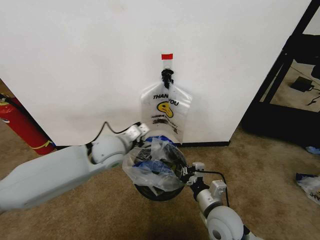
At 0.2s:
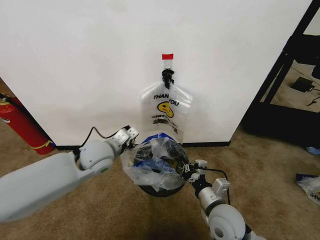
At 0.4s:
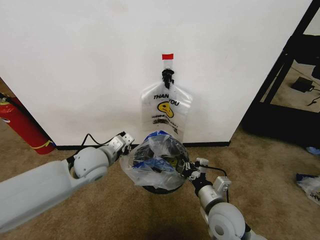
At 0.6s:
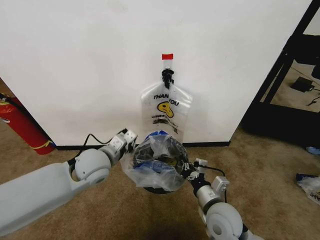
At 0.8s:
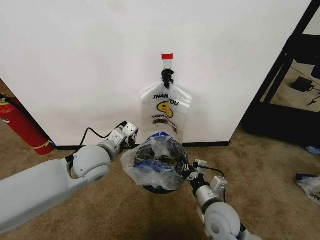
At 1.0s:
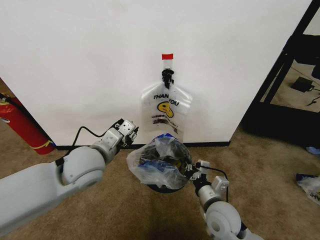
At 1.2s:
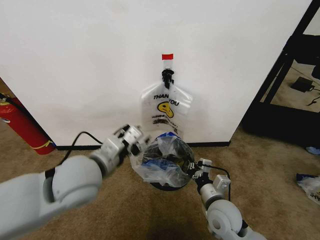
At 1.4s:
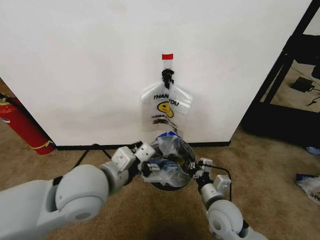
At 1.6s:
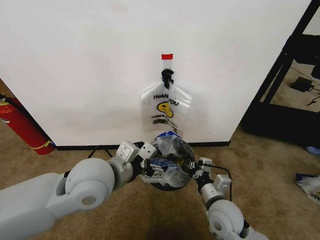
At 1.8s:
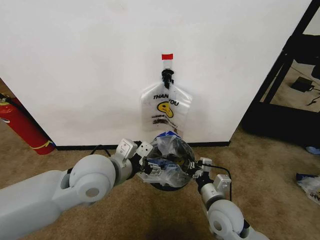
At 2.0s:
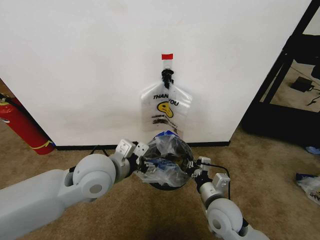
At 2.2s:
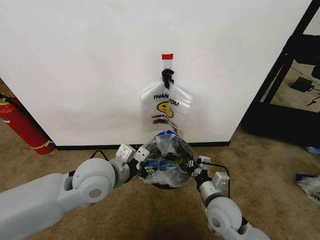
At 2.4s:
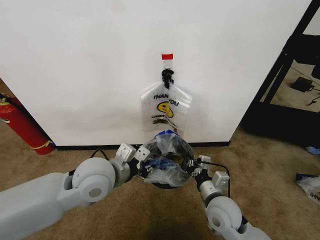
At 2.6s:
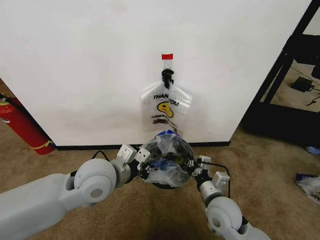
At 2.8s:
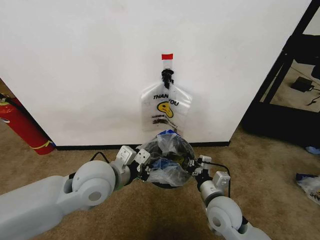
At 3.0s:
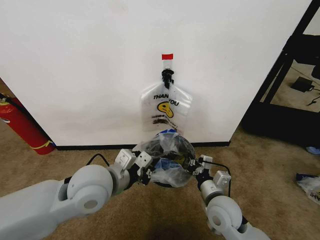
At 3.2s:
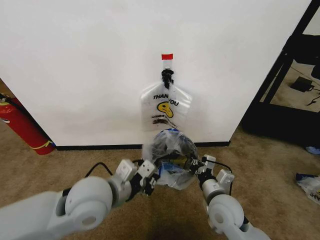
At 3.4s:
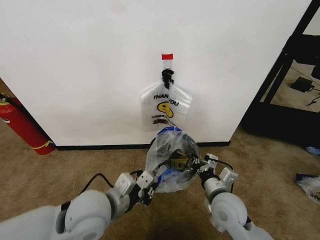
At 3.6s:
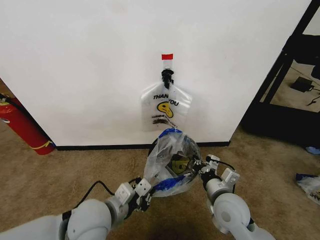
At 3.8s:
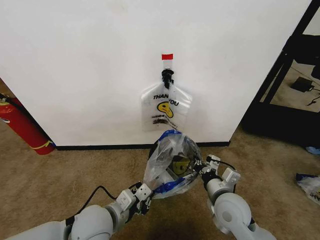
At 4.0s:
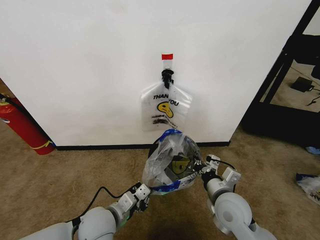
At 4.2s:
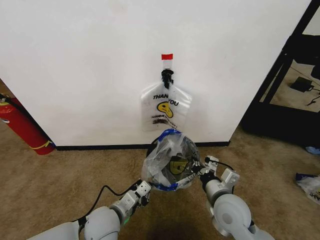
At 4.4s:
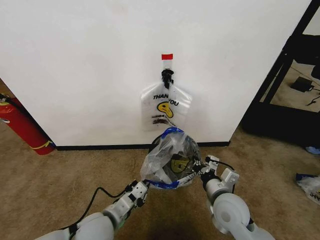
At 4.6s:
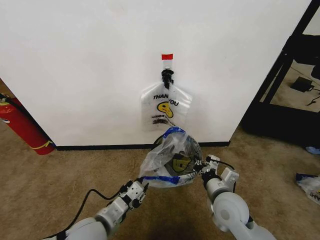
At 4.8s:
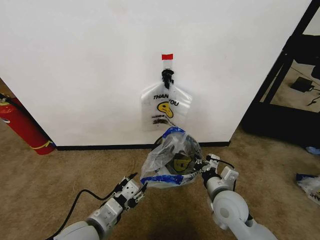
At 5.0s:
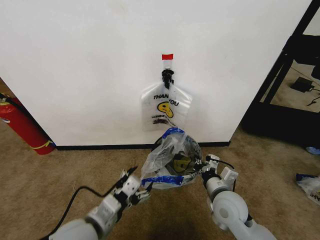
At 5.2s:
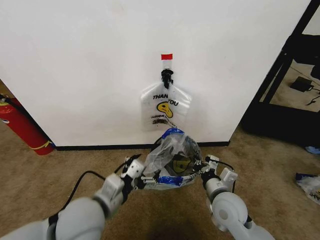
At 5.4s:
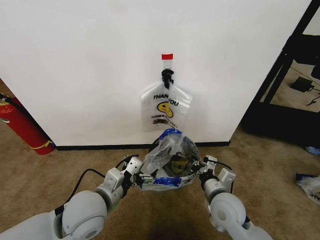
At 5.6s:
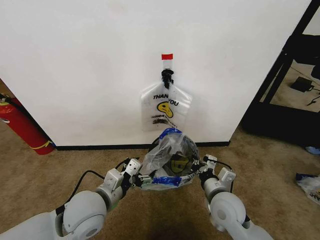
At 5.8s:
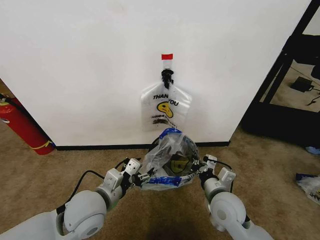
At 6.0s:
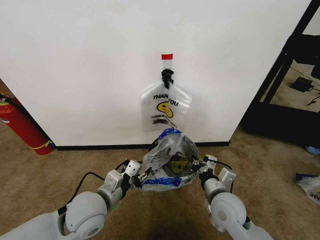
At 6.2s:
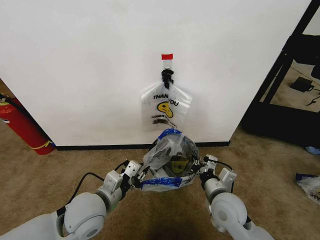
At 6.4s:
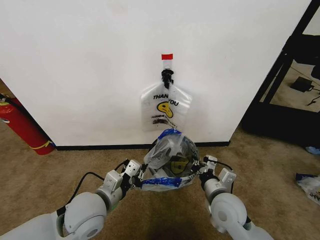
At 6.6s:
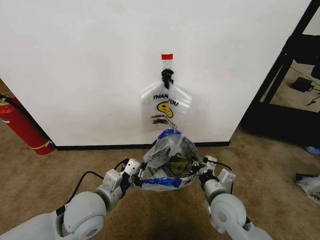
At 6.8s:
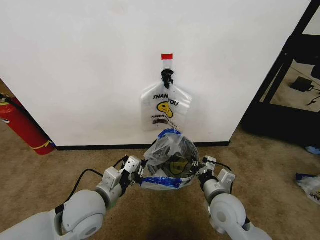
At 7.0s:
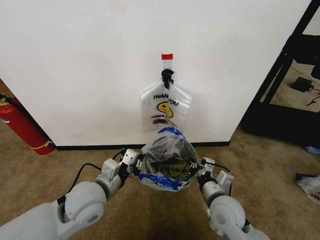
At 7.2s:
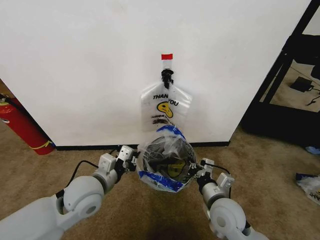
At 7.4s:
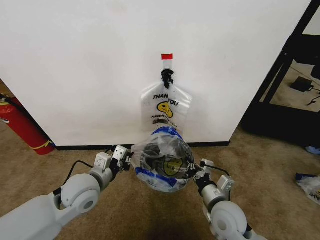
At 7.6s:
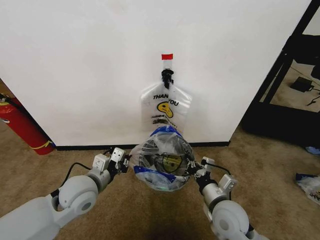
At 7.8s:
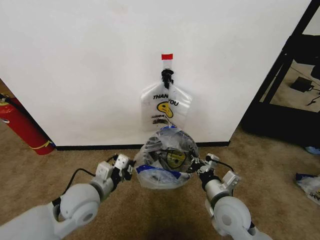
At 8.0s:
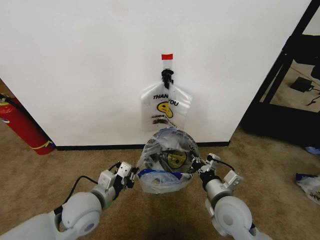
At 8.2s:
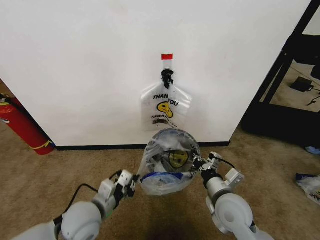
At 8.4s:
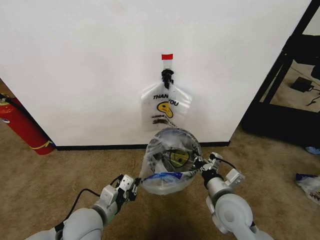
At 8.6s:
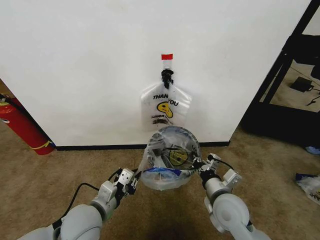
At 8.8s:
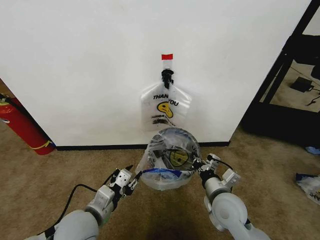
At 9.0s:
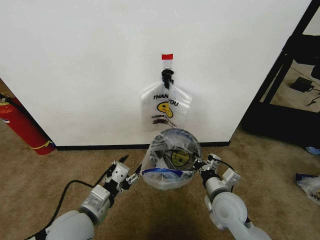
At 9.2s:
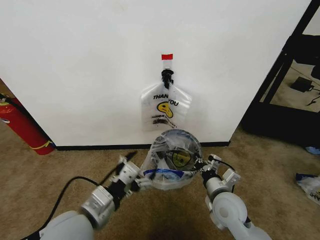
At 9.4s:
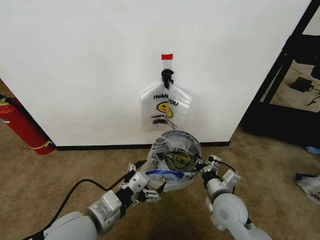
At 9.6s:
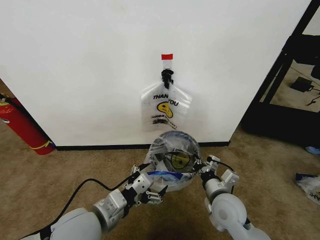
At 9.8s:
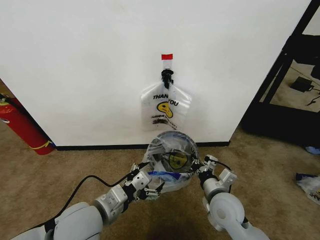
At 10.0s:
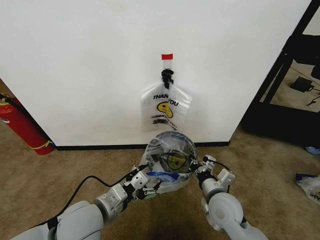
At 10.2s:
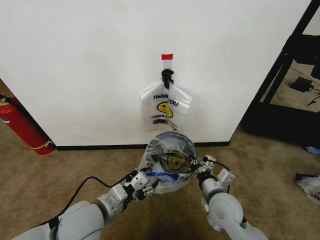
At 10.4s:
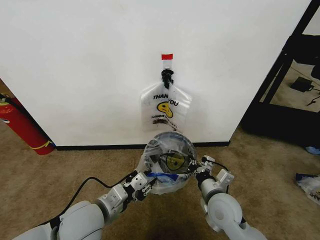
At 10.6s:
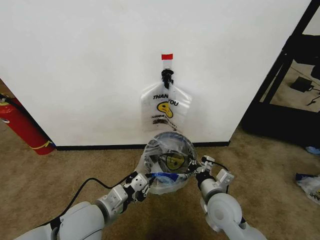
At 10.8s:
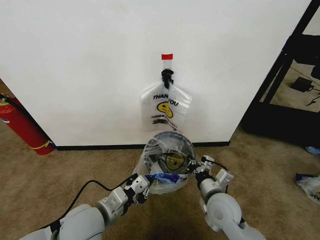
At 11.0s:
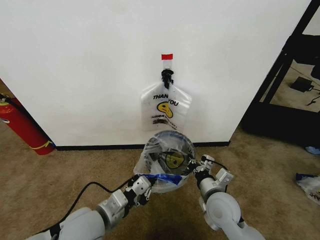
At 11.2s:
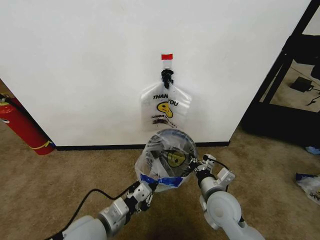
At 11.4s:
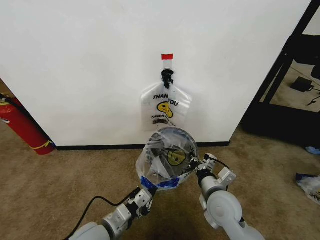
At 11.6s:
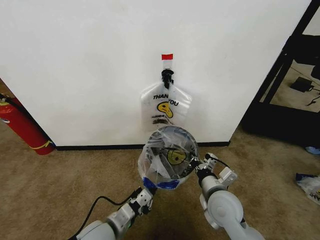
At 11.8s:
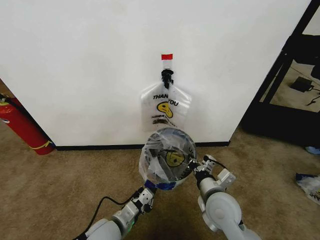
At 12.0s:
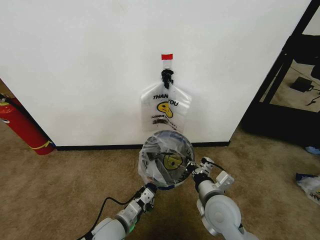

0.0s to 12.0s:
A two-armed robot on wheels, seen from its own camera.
Task of the whole recording: Pick up the garbage bag from the wall and place it over the trash bin.
0.0s to 1.6s: The left gripper travels backward and upward by roughly 15 cm, and opens its fingers.
1.6s to 3.0s: The left gripper closes its fingers.
3.0s to 4.4s: The left gripper goes about 15 cm downward.
4.4s to 6.0s: The left gripper goes roughly 5 cm upward, and opens and closes again.
6.0s to 7.6s: The left gripper ends up some 5 cm from where it was, and closes its fingers.
7.6s to 9.0s: The left gripper travels backward by some 10 cm, and opens up.
9.0s to 10.4s: The left gripper opens, then closes once more.
10.4s to 12.0s: The left gripper heads downward, covering roughly 15 cm.

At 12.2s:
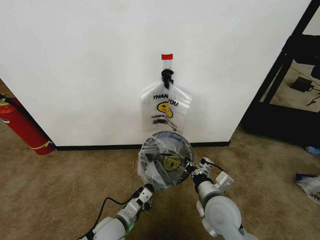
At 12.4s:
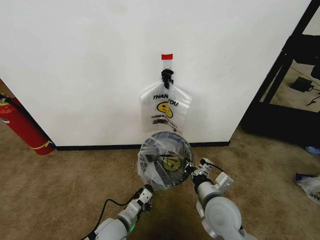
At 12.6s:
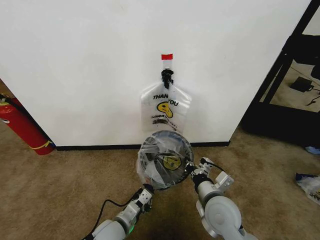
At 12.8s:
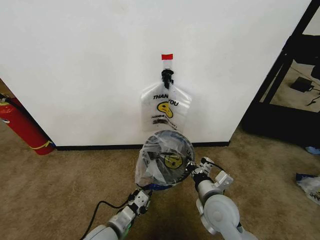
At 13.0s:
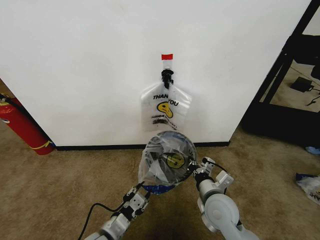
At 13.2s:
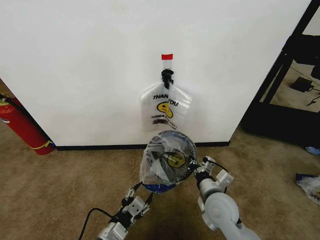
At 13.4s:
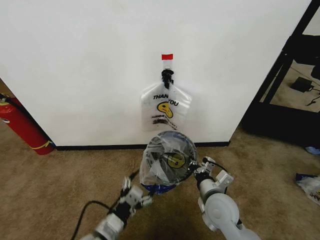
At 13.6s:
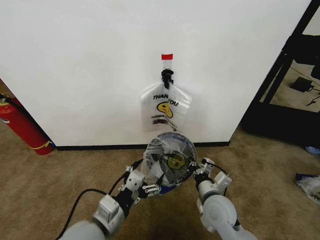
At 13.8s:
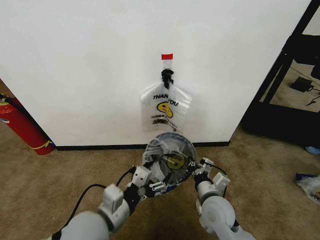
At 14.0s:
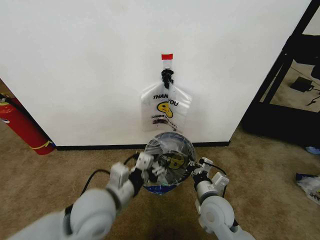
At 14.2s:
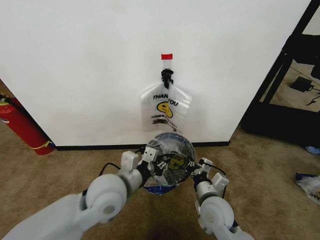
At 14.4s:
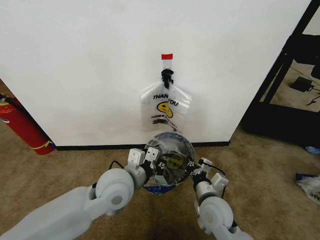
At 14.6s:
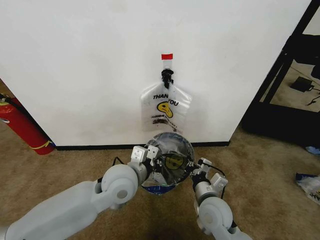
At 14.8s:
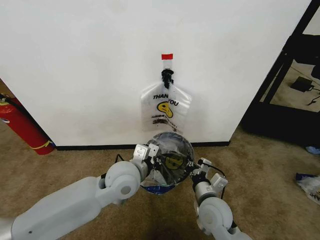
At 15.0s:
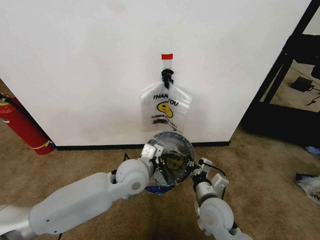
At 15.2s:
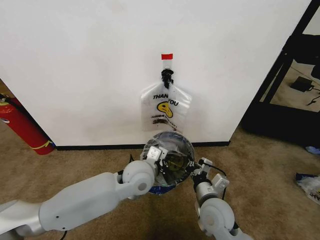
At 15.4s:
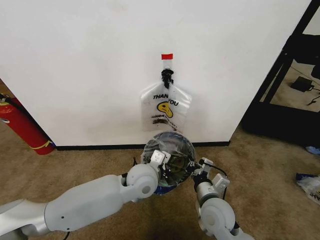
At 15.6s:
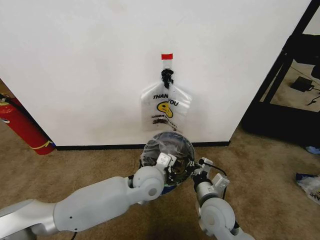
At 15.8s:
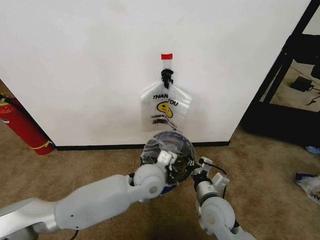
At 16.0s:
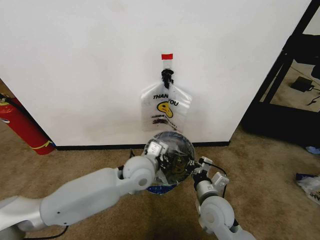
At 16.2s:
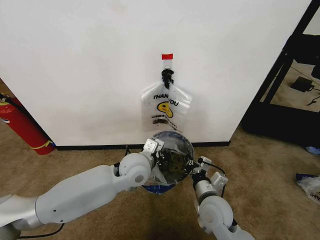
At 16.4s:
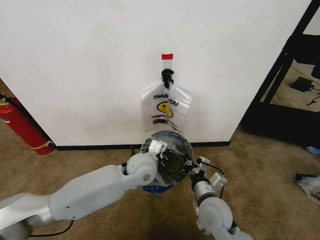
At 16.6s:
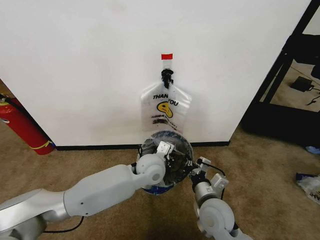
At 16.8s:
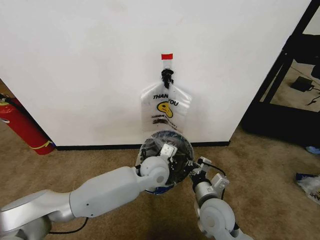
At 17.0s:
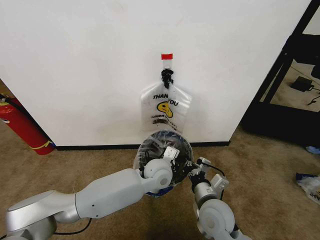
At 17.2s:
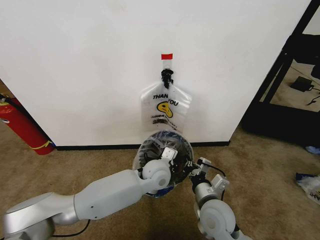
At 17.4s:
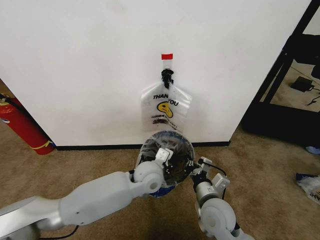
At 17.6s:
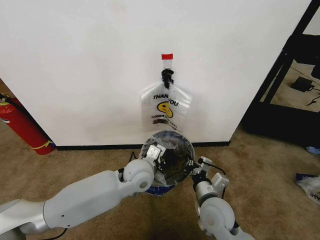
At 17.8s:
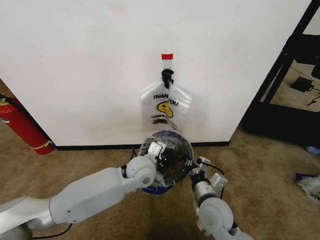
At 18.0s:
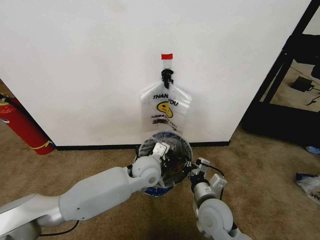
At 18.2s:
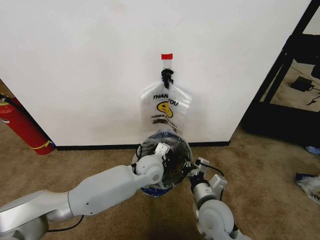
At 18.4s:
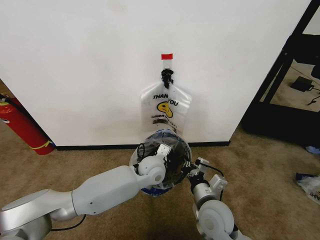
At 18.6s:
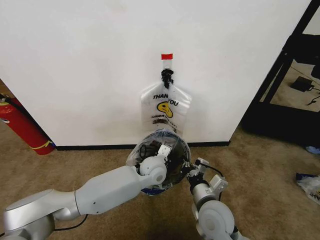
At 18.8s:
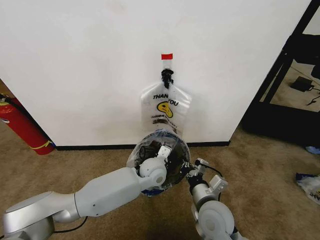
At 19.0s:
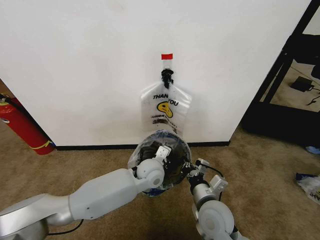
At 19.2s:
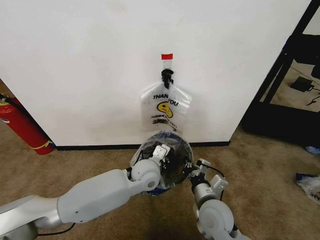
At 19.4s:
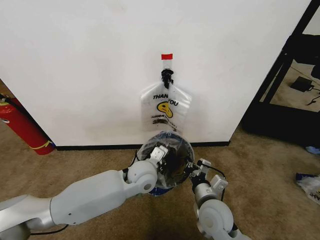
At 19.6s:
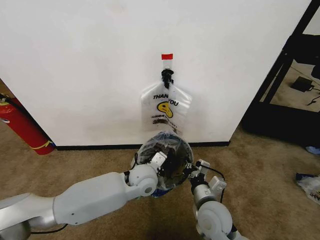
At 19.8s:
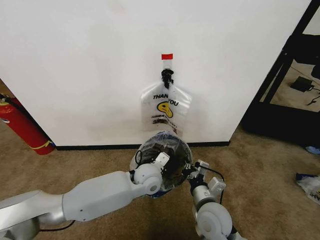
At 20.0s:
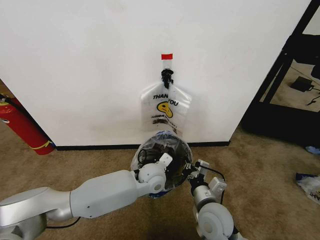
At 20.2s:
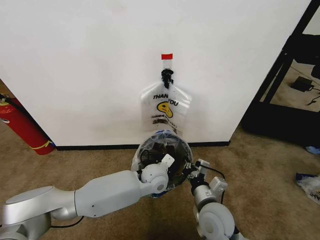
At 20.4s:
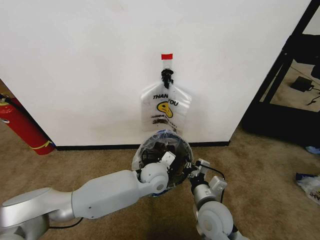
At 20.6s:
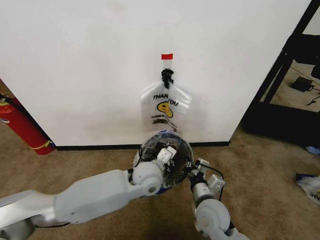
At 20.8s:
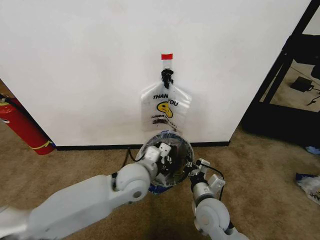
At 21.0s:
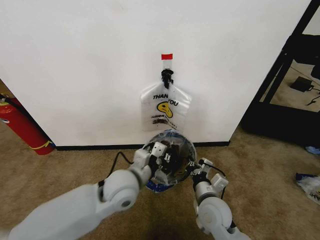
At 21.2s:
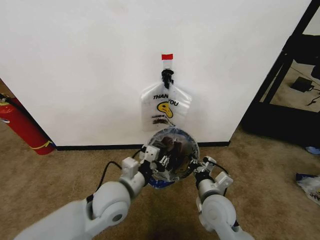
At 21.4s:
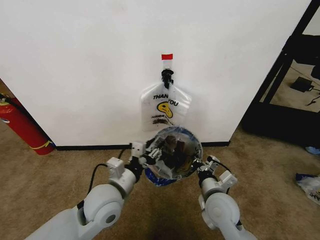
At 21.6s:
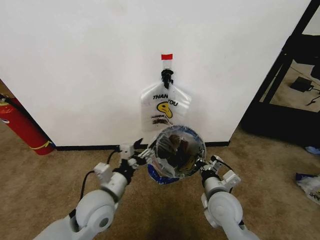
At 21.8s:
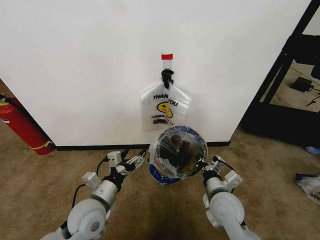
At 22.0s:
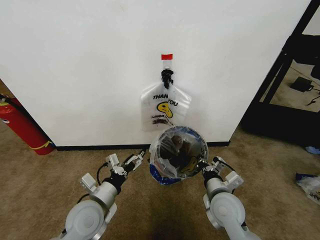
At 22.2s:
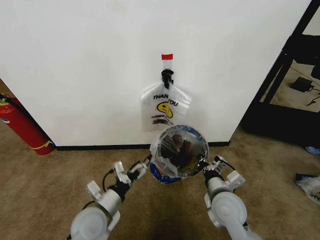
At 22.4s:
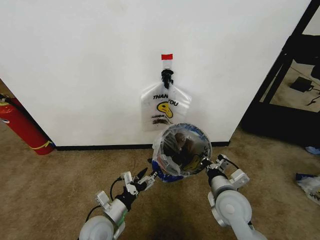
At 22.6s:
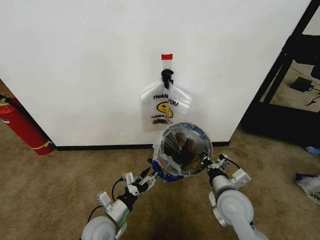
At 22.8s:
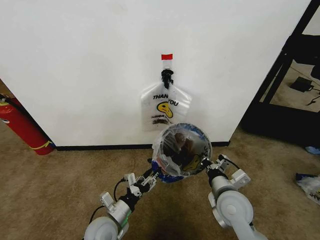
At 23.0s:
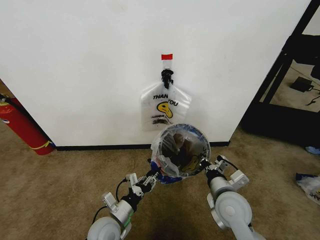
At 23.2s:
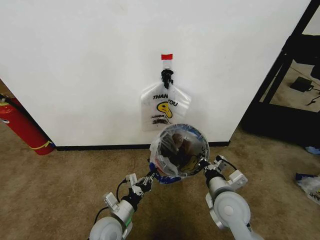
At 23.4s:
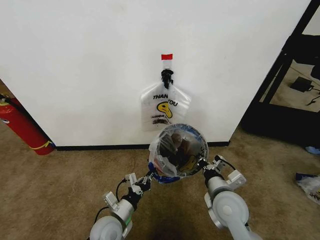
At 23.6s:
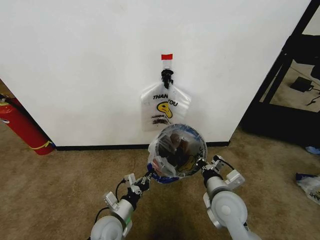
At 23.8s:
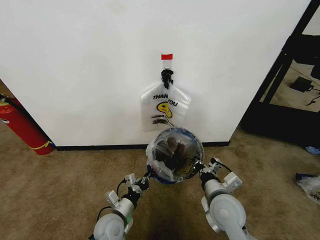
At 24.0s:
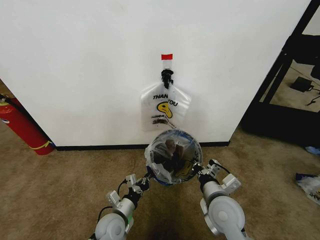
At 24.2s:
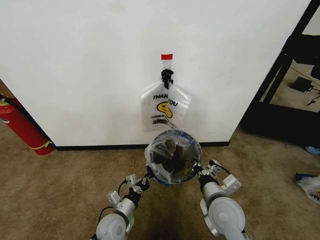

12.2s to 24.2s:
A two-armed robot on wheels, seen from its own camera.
Task of the whole recording: Pick up the garbage bag from the wall and place it over the trash bin.
12.2s to 13.8s: The left gripper travels upward by approximately 15 cm, and opens its fingers.
13.8s to 15.2s: The left gripper goes approximately 20 cm forward and to the right, and closes up.
15.2s to 16.6s: The left gripper swings left and right, some 5 cm each way, with 2 reversals.
16.6s to 19.8s: There are only small adjustments of the grippers.
19.8s to 21.2s: The left gripper travels backward, to the left and upward by roughly 15 cm.
21.2s to 22.6s: The left gripper is displaced downward and to the left by approximately 15 cm, and opens its fingers.
22.6s to 24.2s: The left gripper moves downward, roughly 5 cm, and closes up.
